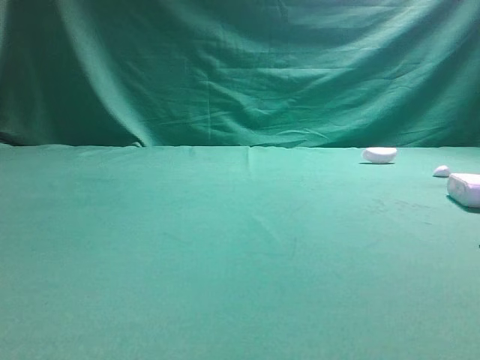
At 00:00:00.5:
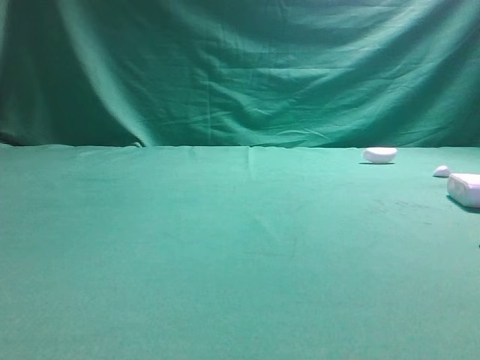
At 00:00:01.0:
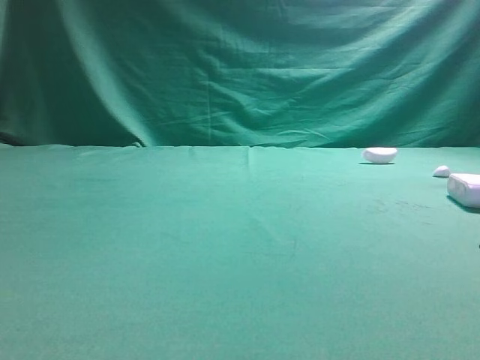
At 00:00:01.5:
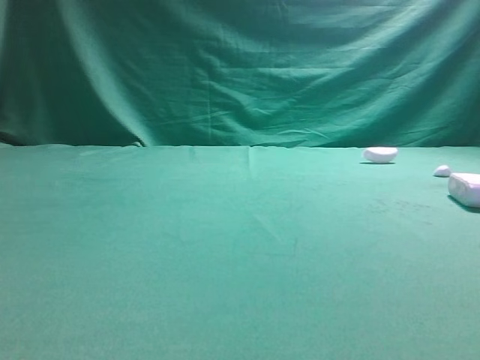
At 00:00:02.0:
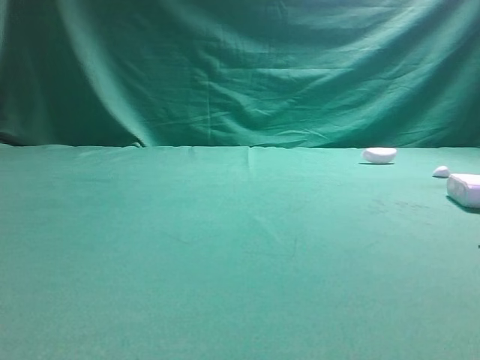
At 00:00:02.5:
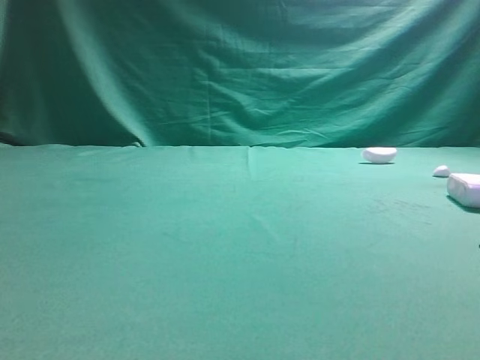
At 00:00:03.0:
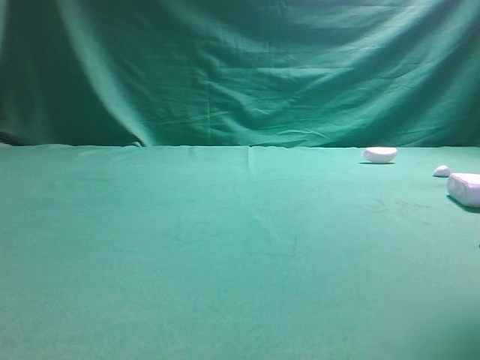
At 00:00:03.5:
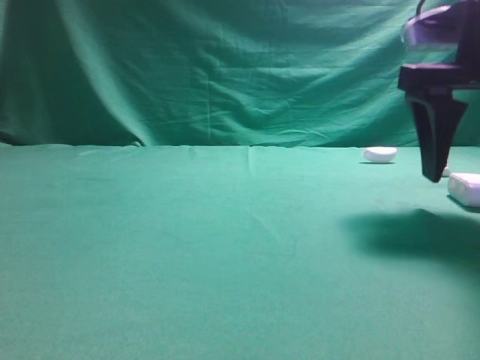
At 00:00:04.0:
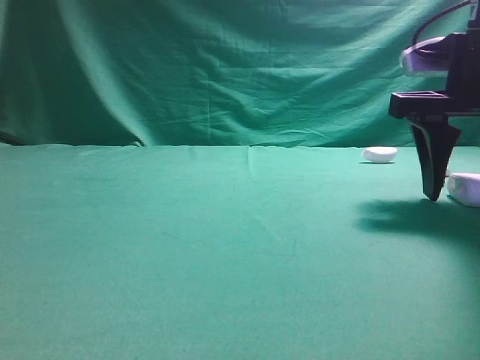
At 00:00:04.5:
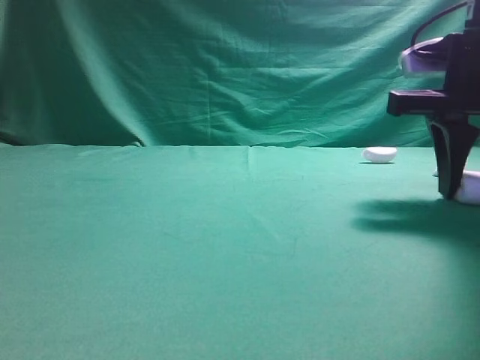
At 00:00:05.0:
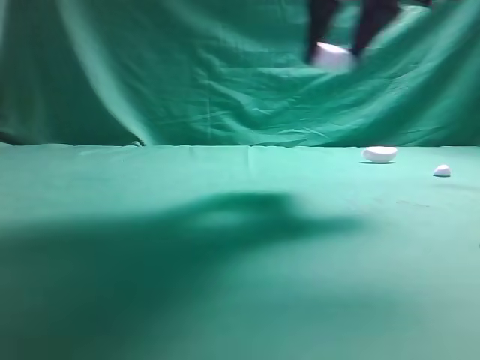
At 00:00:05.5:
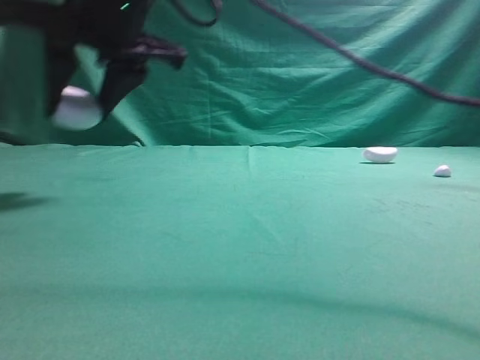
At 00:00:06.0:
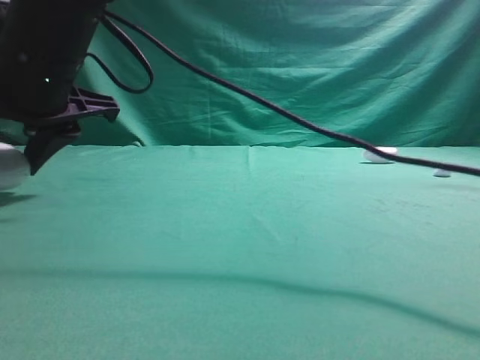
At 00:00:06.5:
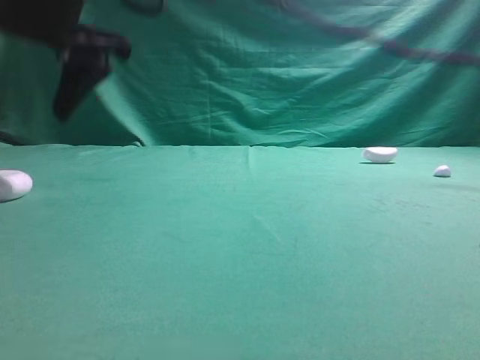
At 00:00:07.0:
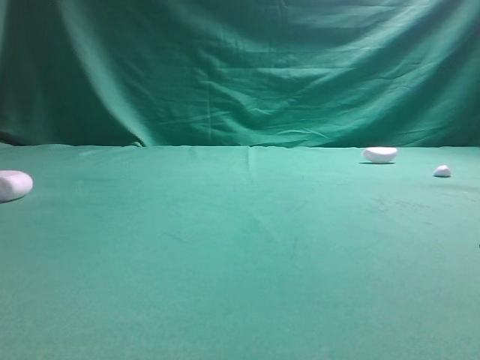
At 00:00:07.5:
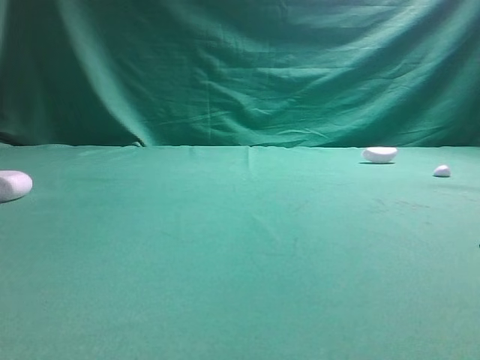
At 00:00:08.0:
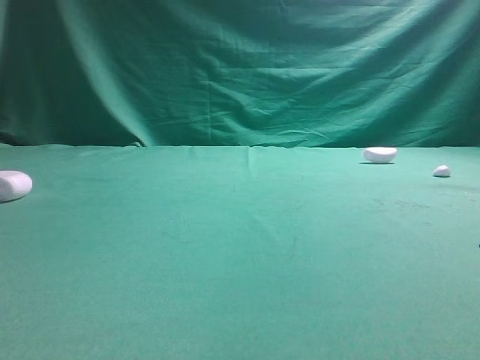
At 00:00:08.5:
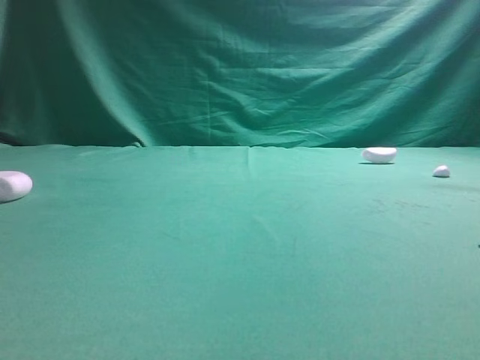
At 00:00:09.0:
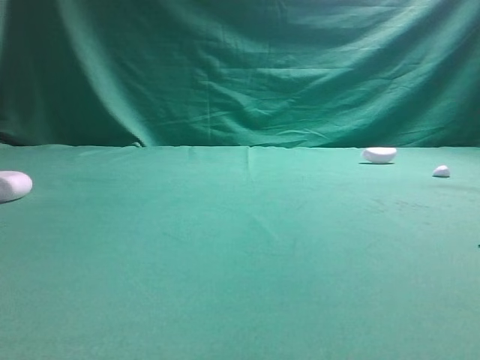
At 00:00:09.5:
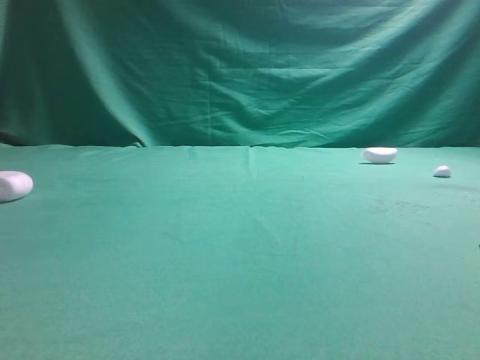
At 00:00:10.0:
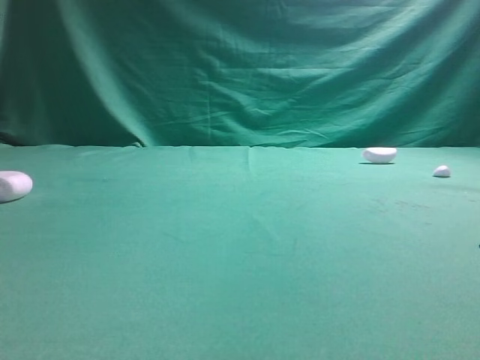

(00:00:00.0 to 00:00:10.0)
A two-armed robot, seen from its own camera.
Step, 00:00:00.0 - 00:00:04.5: Grasp the Bluetooth earphone case.
Step, 00:00:05.0 - 00:00:06.0: Place bluetooth earphone case on the left side of the table.

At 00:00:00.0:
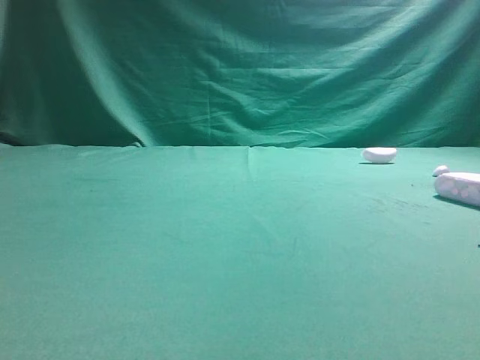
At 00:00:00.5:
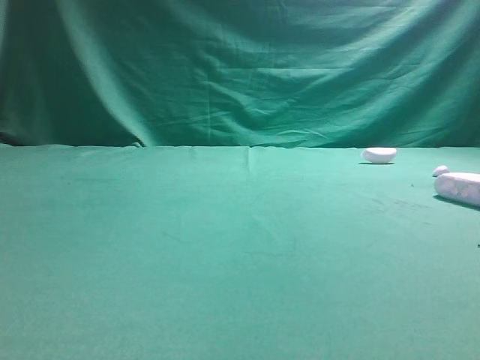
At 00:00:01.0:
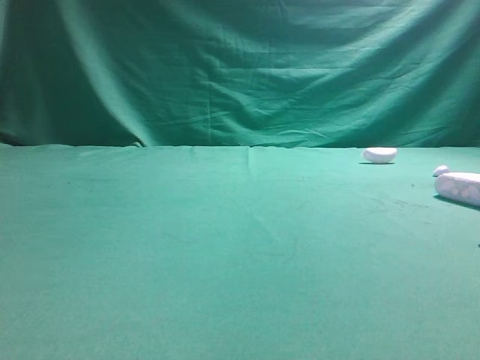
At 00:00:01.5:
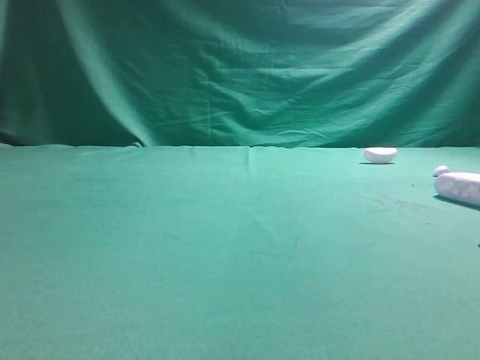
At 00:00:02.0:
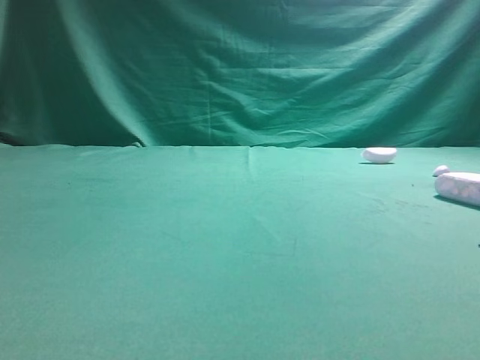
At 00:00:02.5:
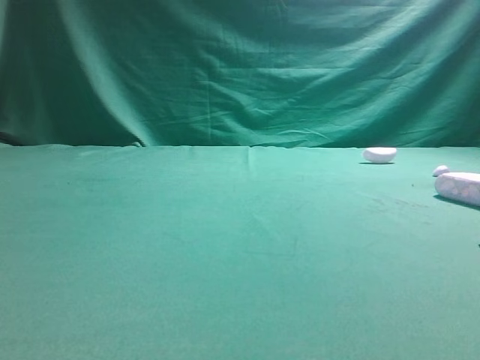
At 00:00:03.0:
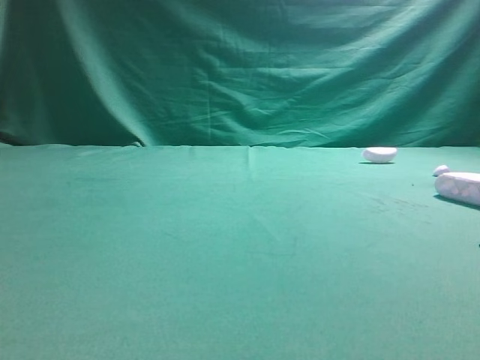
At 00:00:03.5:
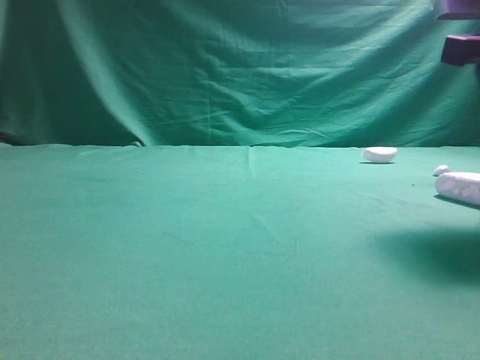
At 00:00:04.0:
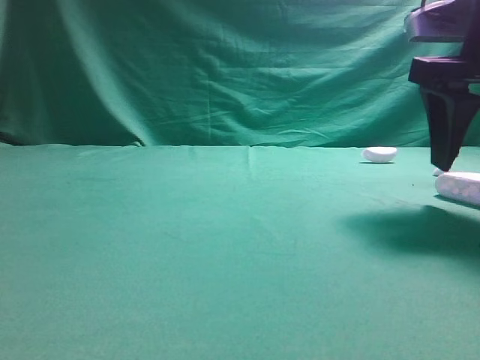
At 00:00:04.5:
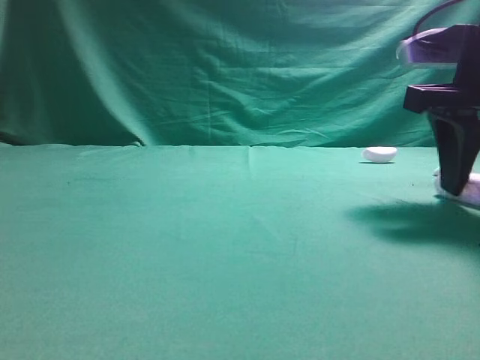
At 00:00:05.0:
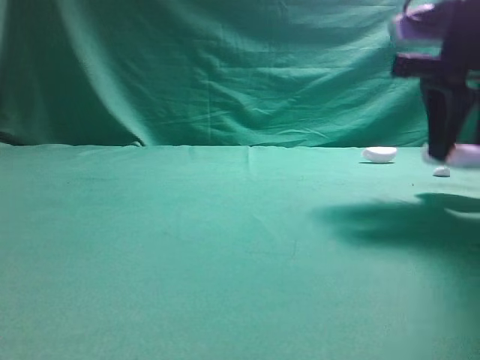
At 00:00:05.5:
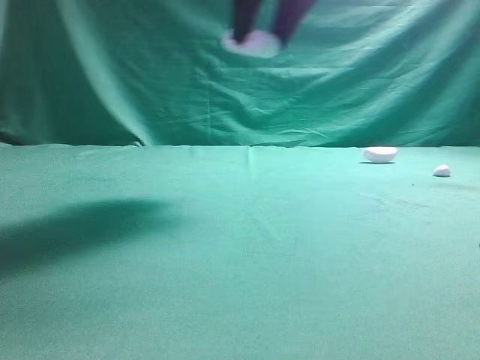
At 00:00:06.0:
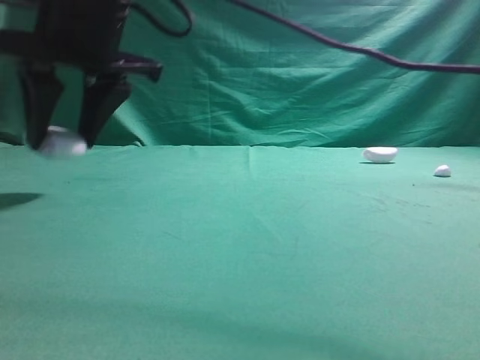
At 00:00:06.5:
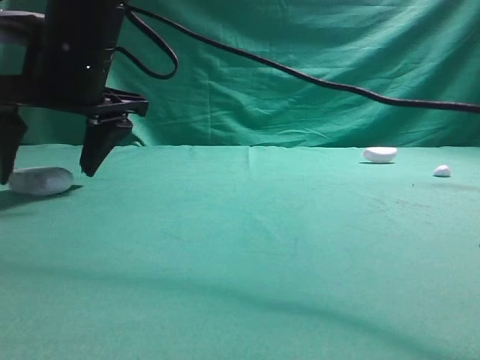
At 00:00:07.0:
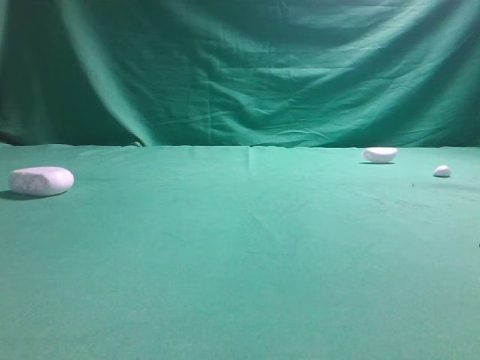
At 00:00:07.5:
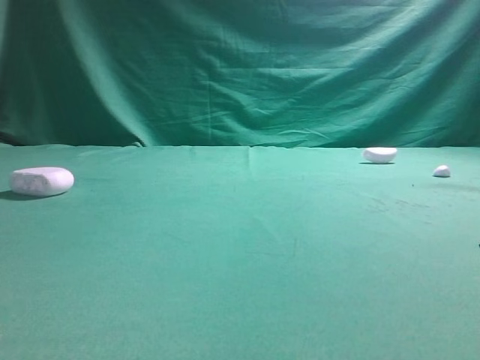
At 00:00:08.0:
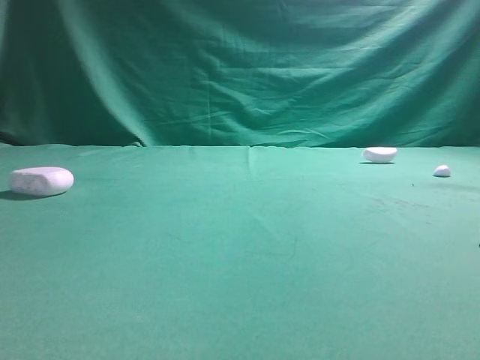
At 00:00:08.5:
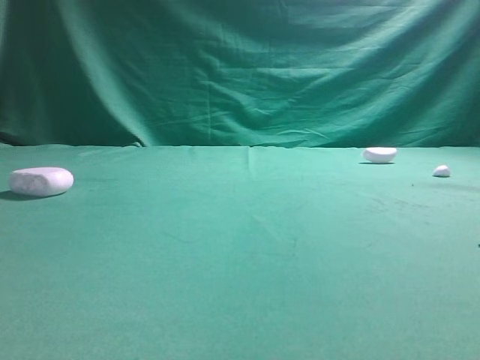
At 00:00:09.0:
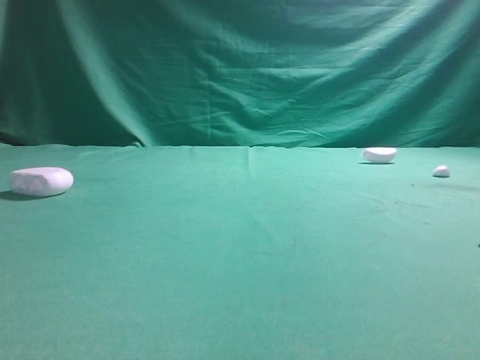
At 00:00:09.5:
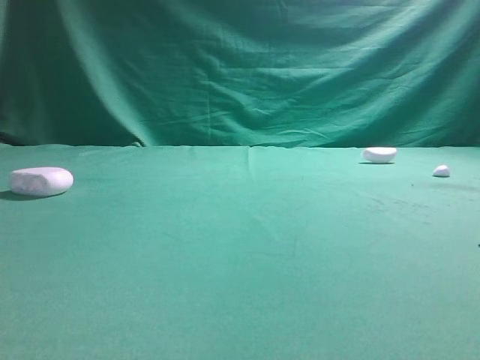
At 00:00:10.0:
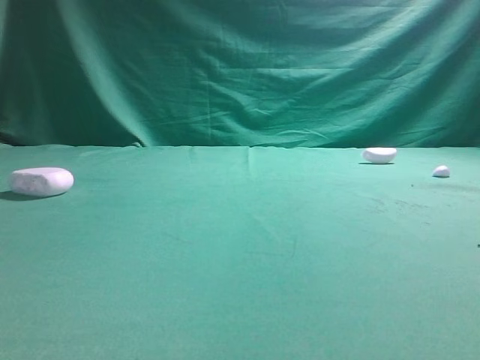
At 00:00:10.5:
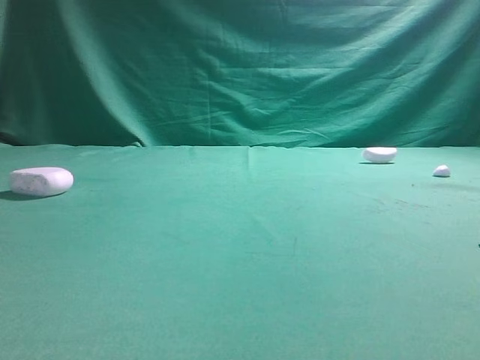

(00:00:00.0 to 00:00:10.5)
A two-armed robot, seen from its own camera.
Step, 00:00:00.0 - 00:00:05.0: Grasp the Bluetooth earphone case.
Step, 00:00:05.5 - 00:00:06.5: Place bluetooth earphone case on the left side of the table.

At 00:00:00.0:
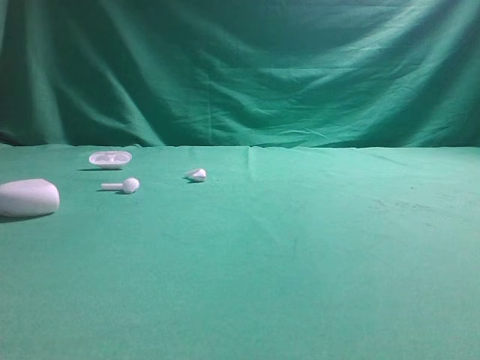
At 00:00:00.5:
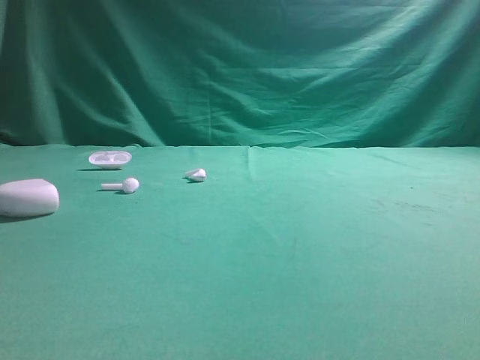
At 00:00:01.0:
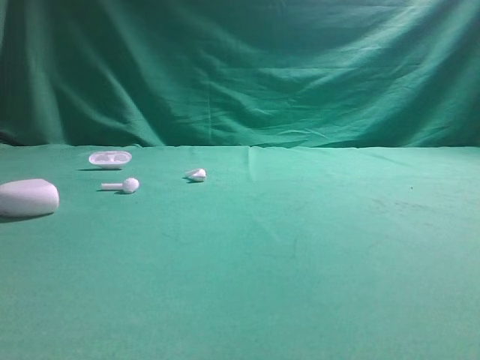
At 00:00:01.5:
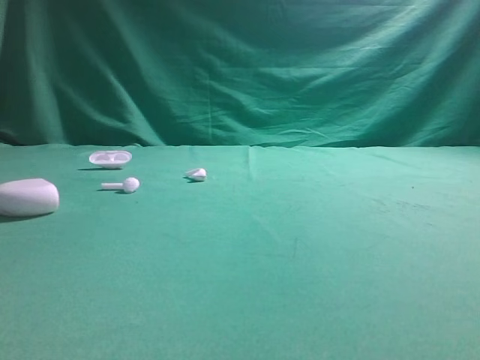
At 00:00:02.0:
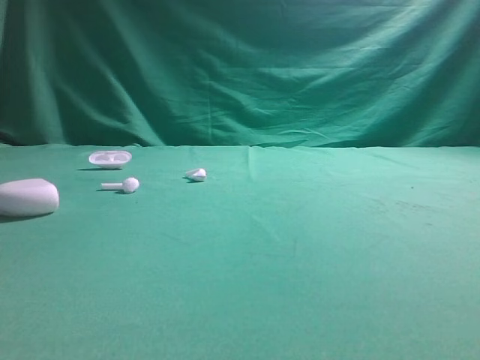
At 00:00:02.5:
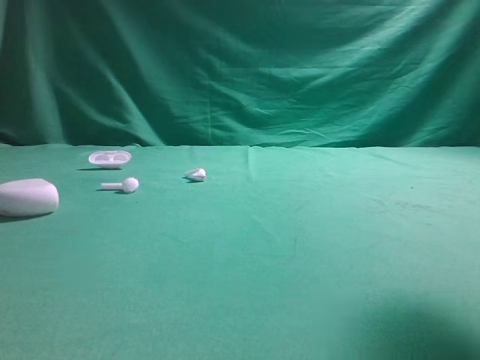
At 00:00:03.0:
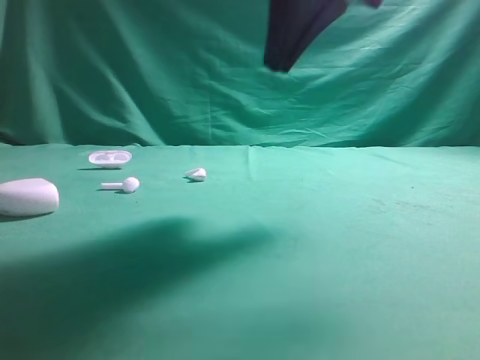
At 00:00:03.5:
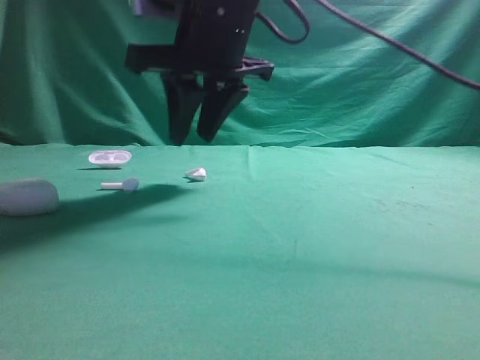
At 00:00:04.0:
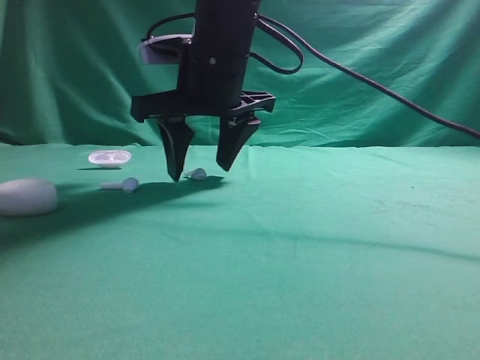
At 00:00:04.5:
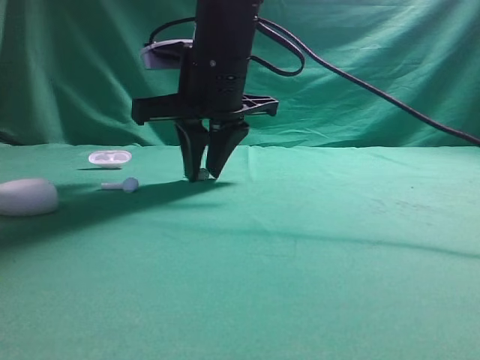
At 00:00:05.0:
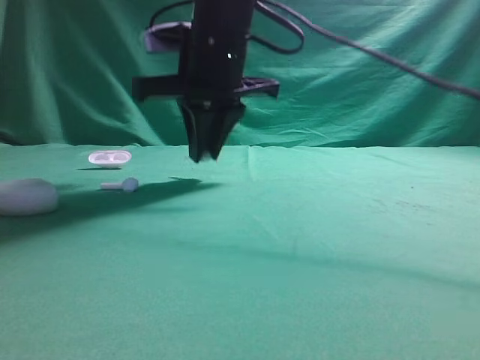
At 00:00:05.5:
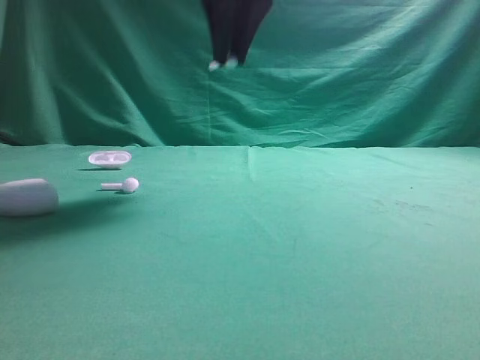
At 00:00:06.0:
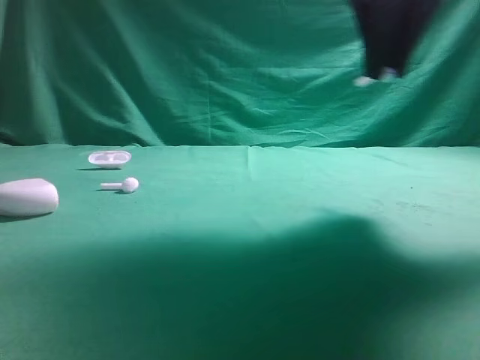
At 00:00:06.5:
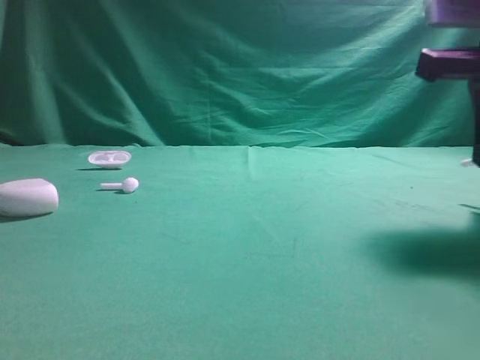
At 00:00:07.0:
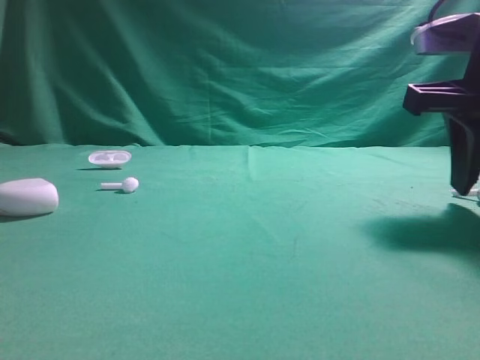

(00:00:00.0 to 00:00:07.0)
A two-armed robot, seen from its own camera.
Step, 00:00:00.0 - 00:00:05.0: Grasp the Bluetooth earbud.
